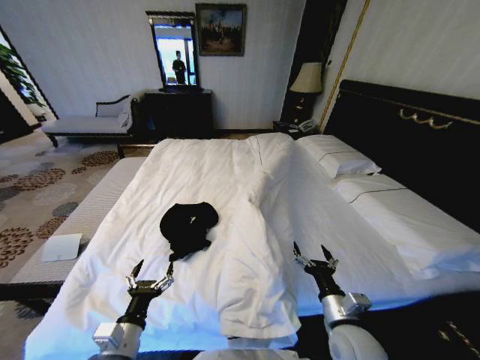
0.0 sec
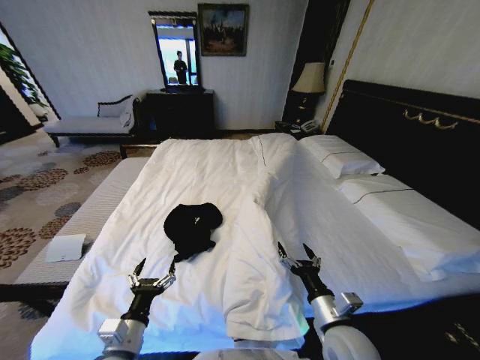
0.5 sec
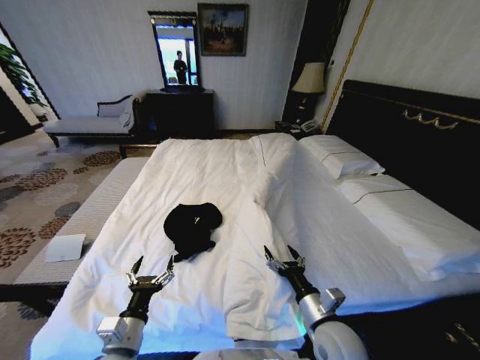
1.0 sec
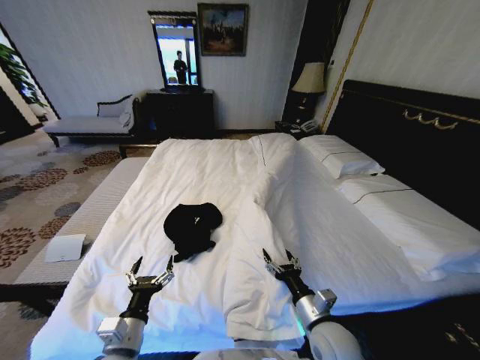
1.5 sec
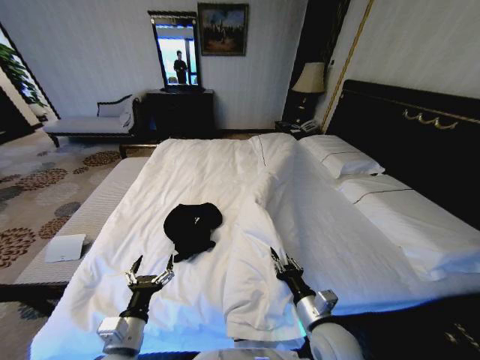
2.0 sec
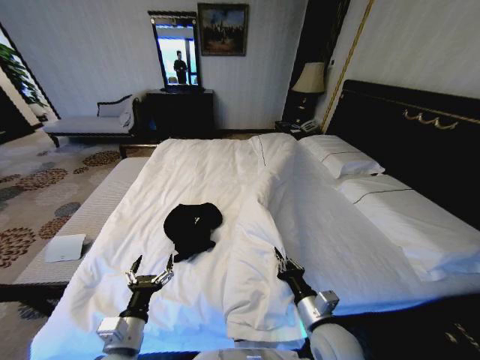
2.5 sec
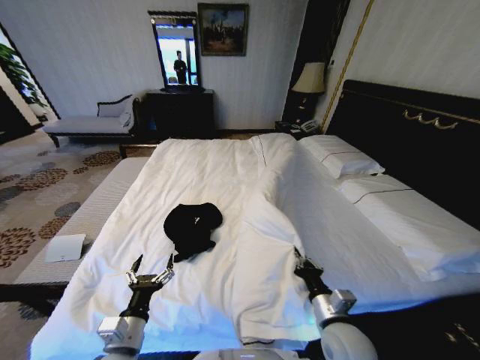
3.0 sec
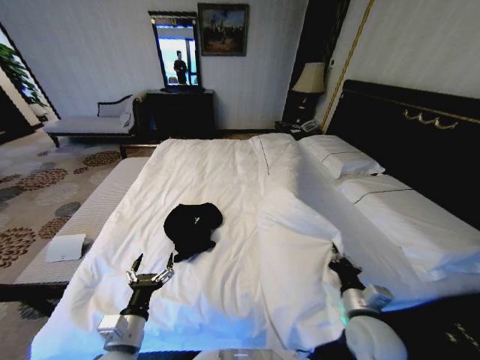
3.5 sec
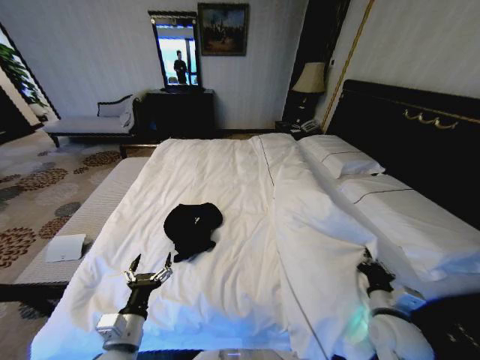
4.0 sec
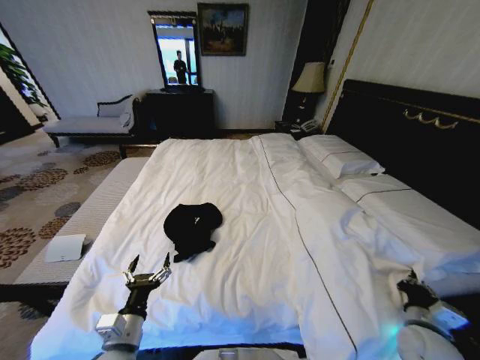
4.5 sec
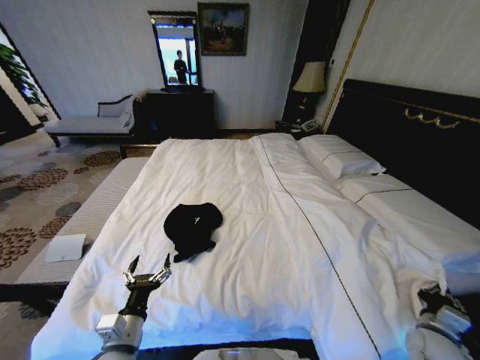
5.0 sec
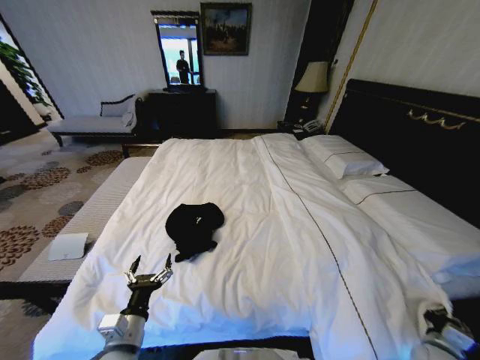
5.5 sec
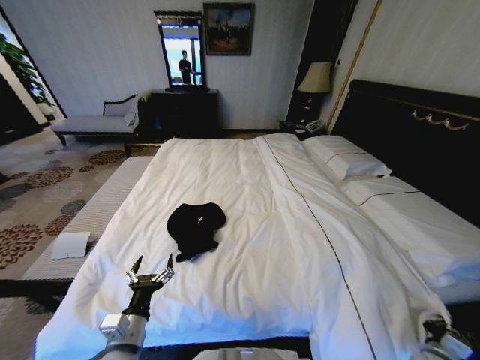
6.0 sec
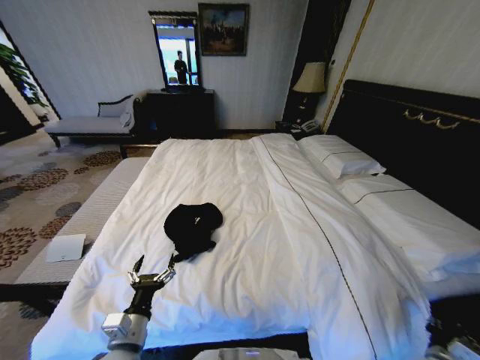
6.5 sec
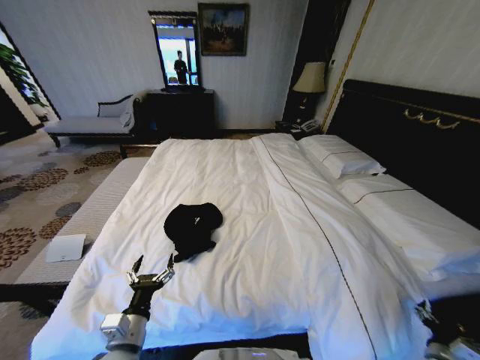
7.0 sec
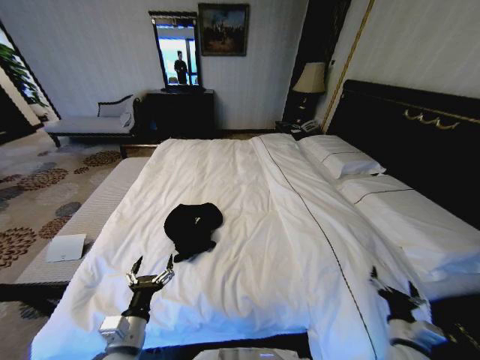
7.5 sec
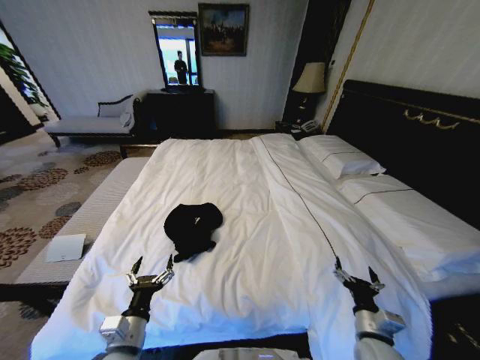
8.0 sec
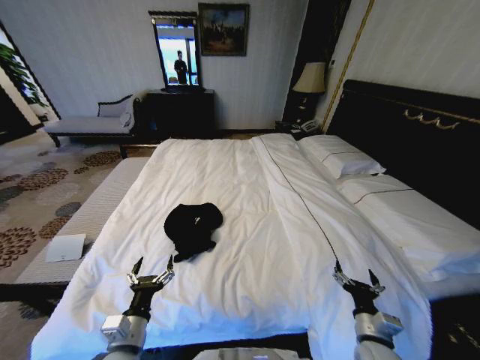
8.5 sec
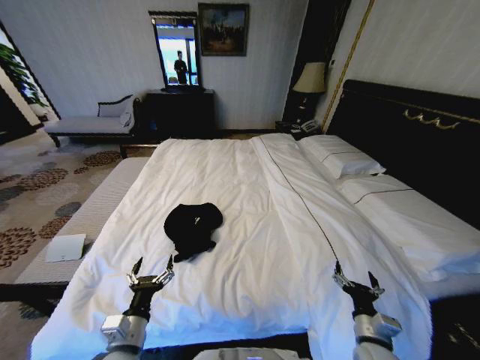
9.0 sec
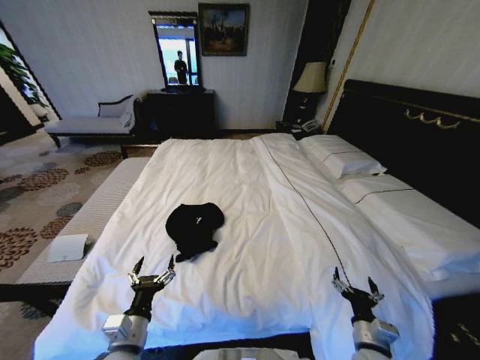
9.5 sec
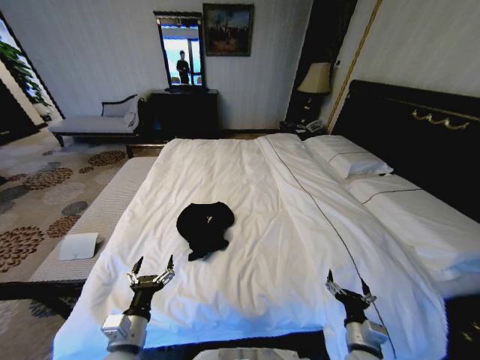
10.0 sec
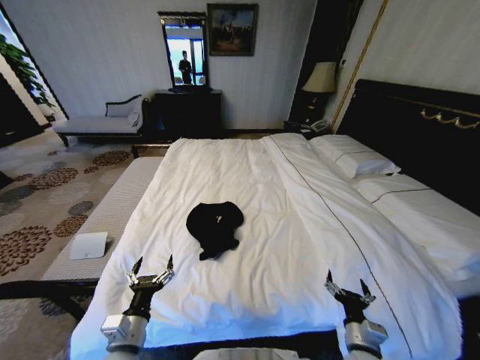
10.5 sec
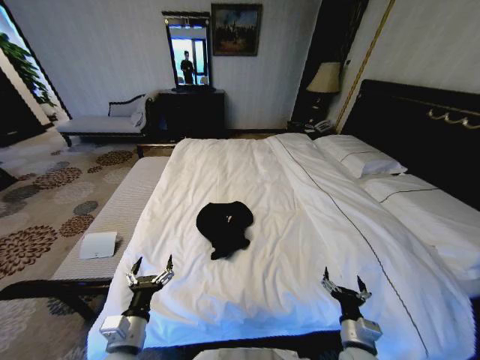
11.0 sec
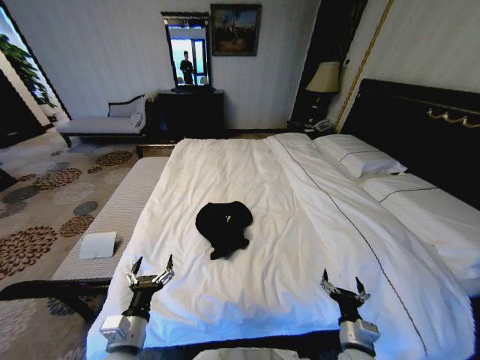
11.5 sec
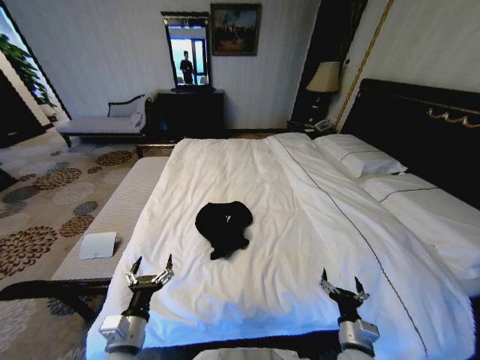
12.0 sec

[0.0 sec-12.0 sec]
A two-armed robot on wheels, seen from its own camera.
Task of the whole recording: Fold the clothes on the bed.
0.0 sec to 2.0 sec: The right gripper closes its fingers.
2.0 sec to 4.0 sec: The right gripper is displaced to the right by roughly 15 cm.
4.0 sec to 6.0 sec: The right gripper goes roughly 20 cm to the right and downward.
6.0 sec to 8.0 sec: The right gripper moves to the left and upward, some 20 cm, and opens.

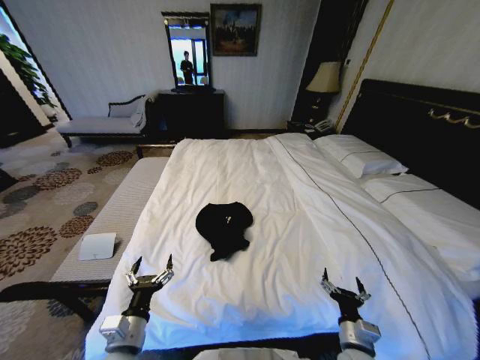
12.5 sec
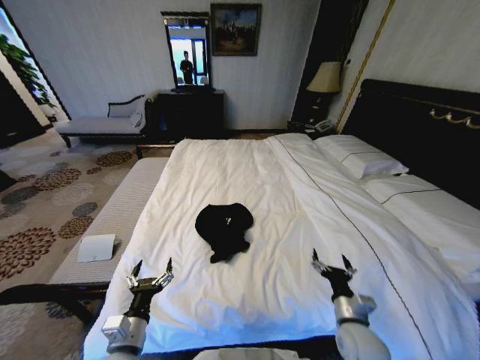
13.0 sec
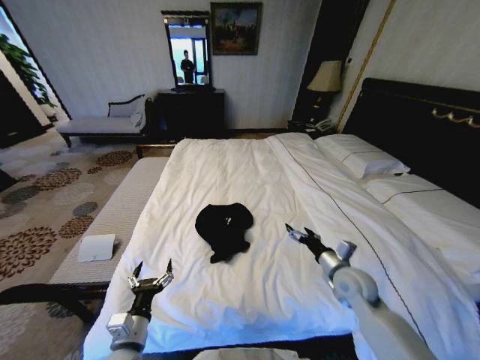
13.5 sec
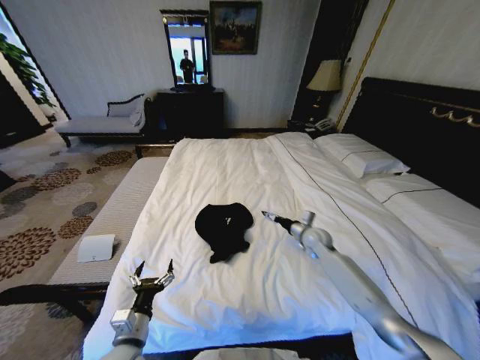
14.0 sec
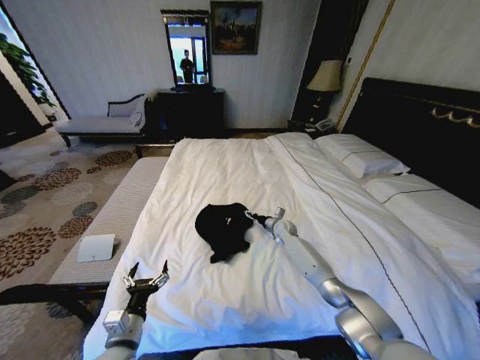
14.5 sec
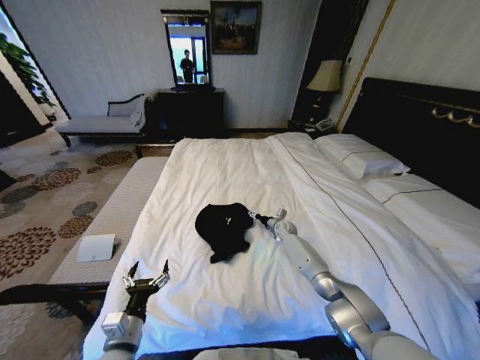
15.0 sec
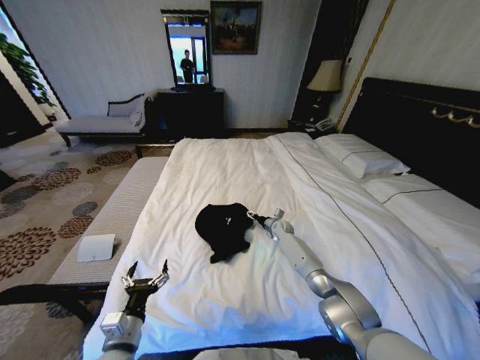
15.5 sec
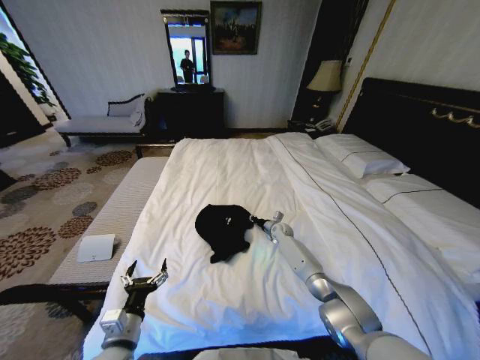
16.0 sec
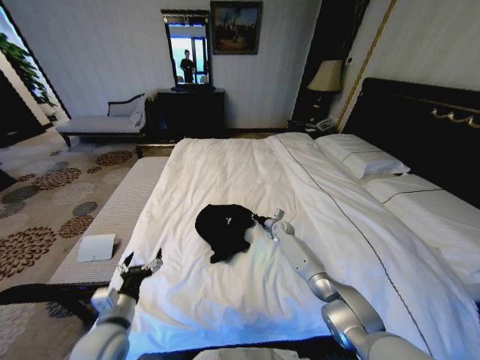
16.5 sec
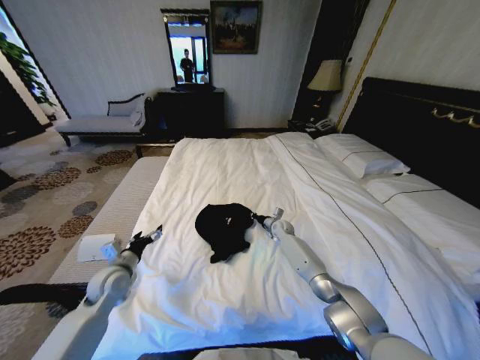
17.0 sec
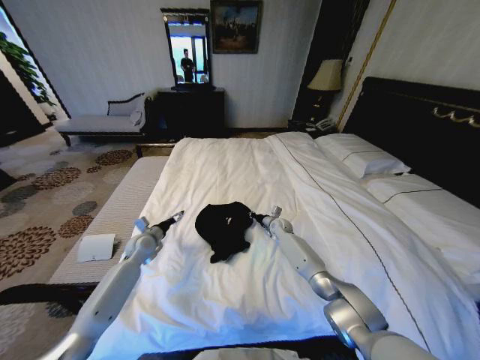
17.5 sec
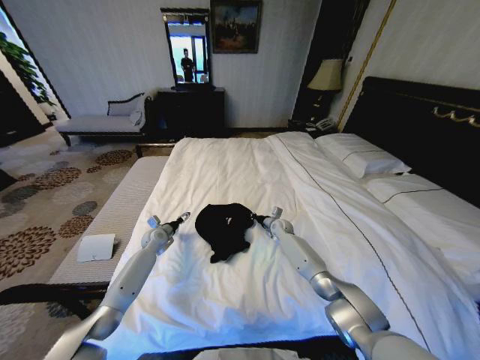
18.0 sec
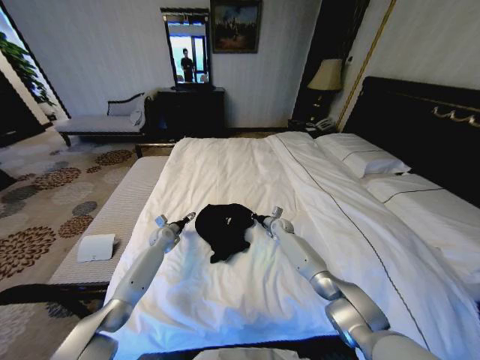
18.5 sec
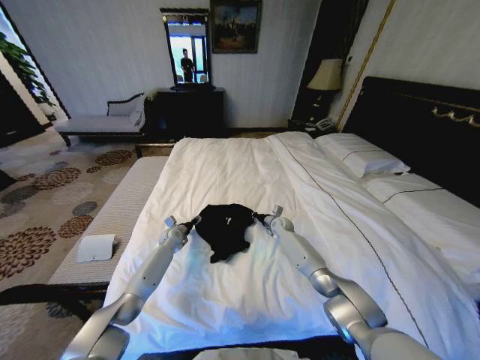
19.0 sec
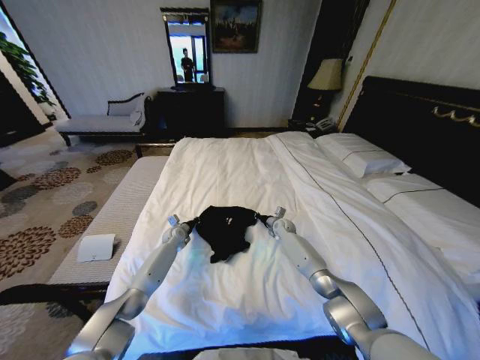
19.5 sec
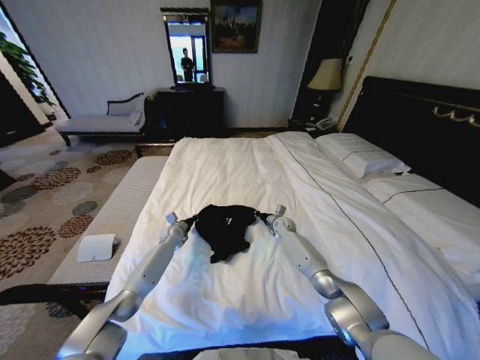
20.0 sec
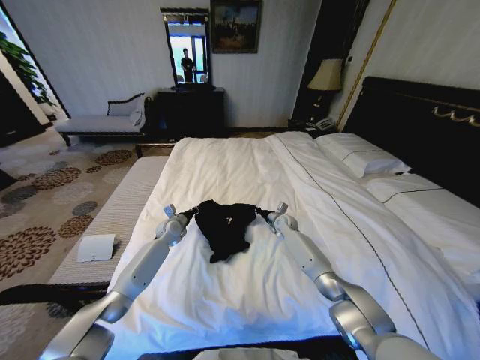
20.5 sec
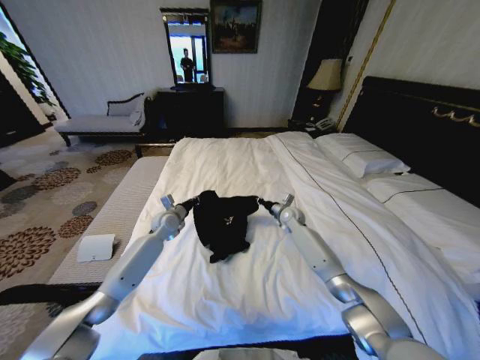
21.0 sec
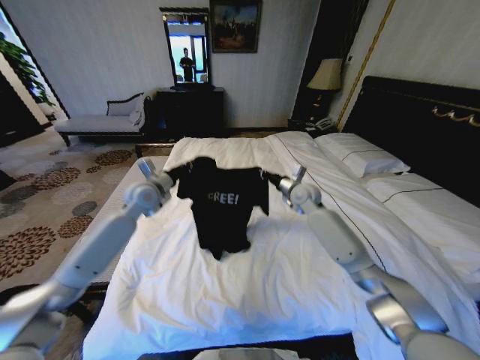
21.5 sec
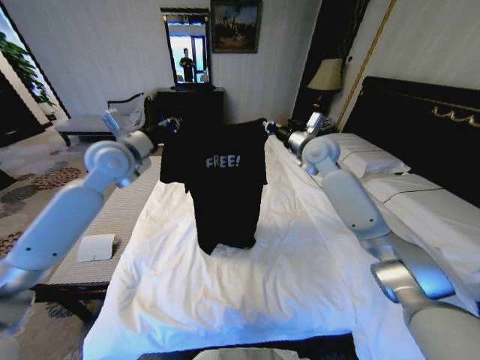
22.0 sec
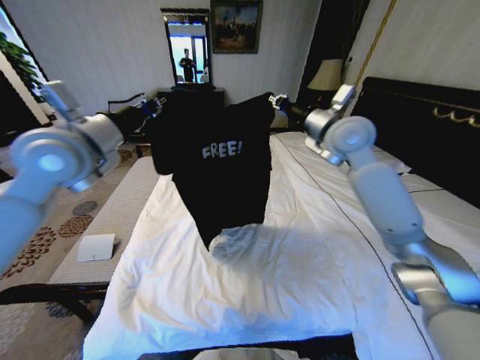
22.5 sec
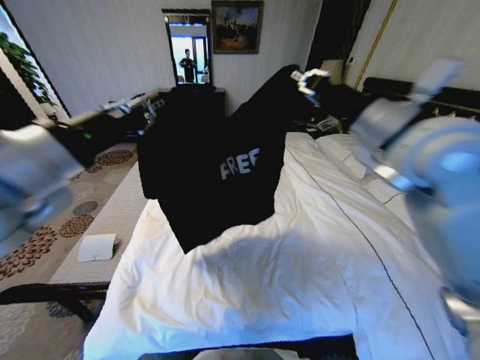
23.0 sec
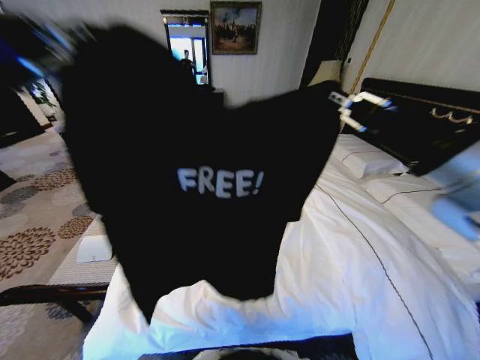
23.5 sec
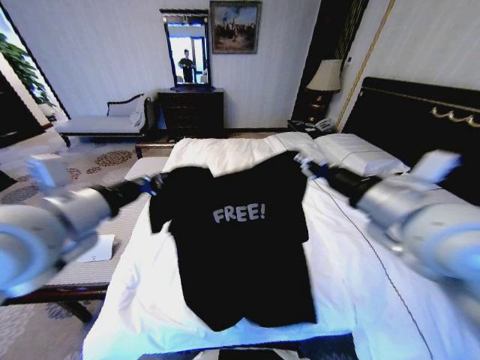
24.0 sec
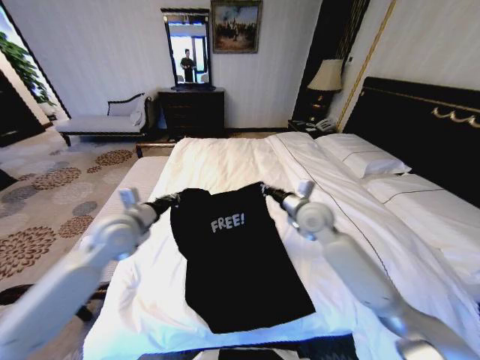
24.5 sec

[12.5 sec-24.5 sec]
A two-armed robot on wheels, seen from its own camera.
Task of the whole recording: Fold the clothes on the bed.
12.5 sec to 14.5 sec: The right gripper heads forward, covering roughly 40 cm.
14.5 sec to 16.5 sec: The right gripper closes. Meanwhile the left gripper shifts by approximately 5 cm.
16.5 sec to 18.5 sec: The left gripper is displaced forward by approximately 35 cm.
18.5 sec to 20.5 sec: The left gripper changes place by roughly 5 cm, and closes.
20.5 sec to 22.5 sec: Both grippers travel together upward, some 40 cm.
22.5 sec to 24.5 sec: Both grippers travel together downward, about 20 cm. The right gripper goes backward and returns, about 25 cm each way.

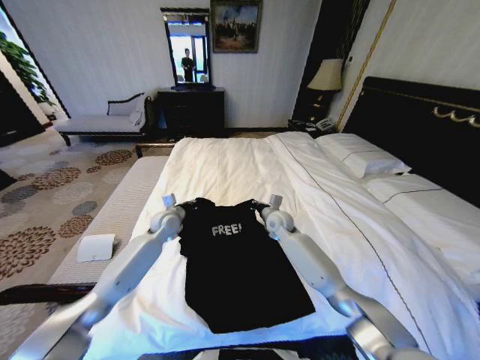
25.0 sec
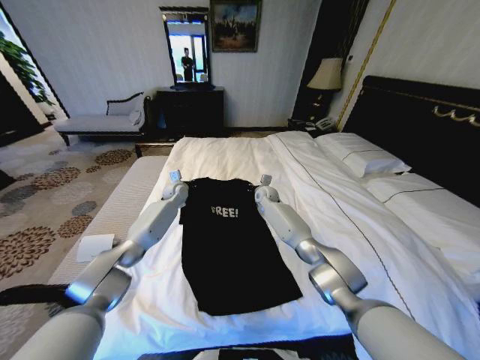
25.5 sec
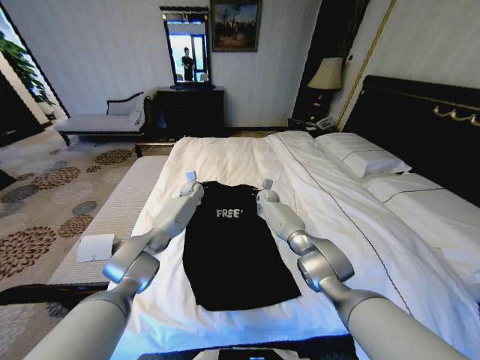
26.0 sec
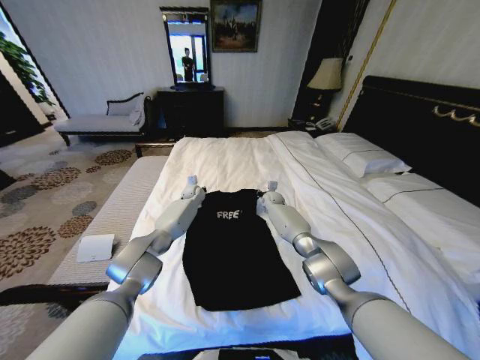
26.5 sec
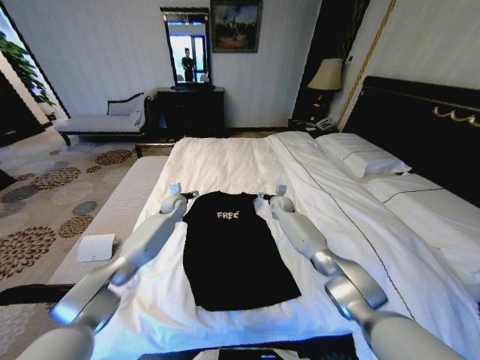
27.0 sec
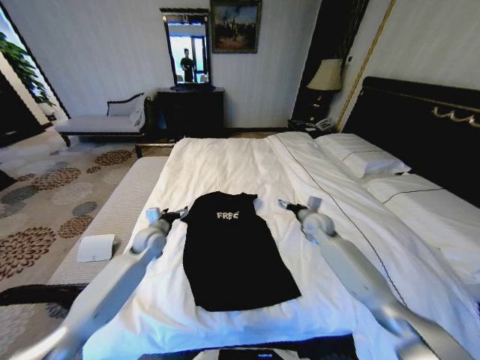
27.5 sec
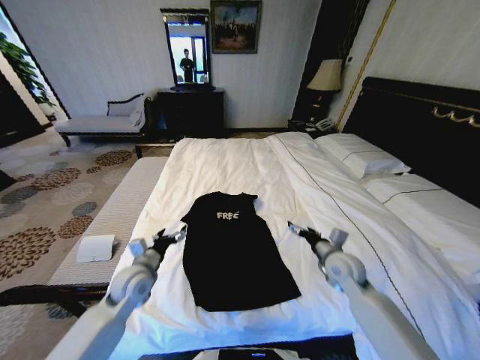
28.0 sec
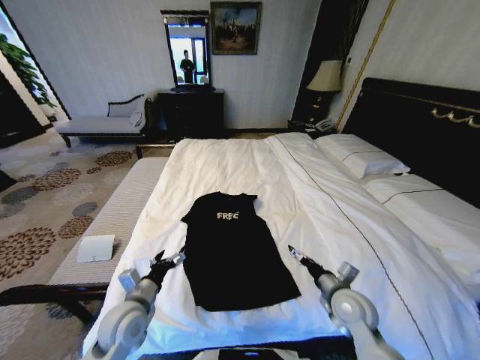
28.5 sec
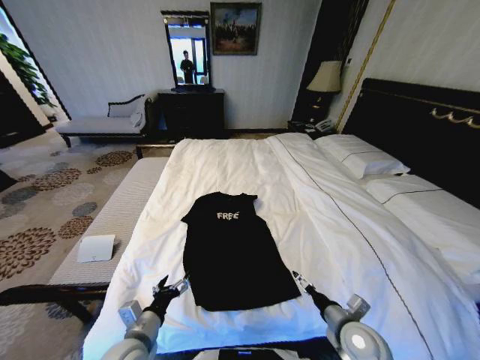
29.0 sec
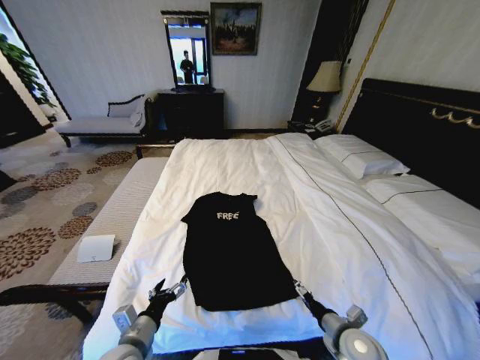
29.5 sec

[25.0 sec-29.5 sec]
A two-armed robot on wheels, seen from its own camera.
Task of the whole recording: Fold the clothes on the bed.
25.0 sec to 27.0 sec: The right gripper is displaced forward and to the right by approximately 10 cm, and opens; the left gripper is displaced forward by some 10 cm, and opens.
27.0 sec to 29.5 sec: Both grippers travel together backward, about 40 cm.
